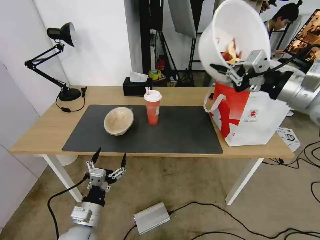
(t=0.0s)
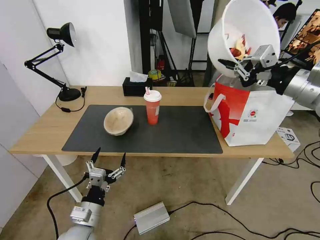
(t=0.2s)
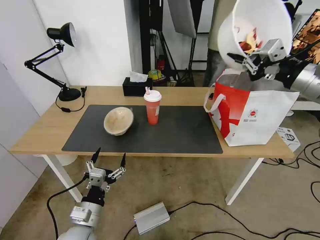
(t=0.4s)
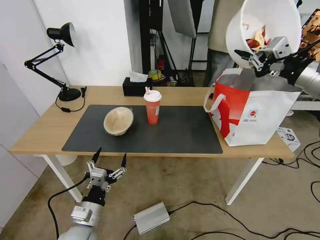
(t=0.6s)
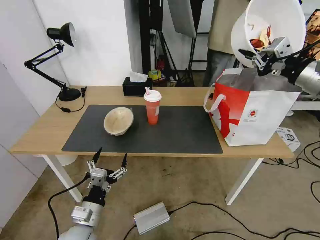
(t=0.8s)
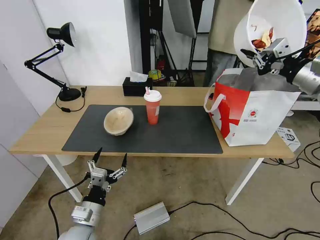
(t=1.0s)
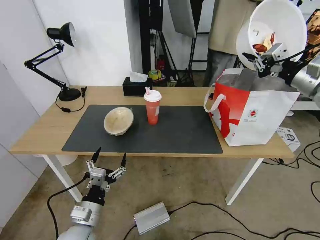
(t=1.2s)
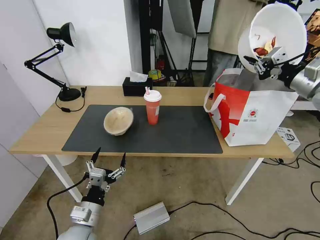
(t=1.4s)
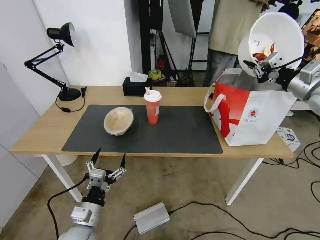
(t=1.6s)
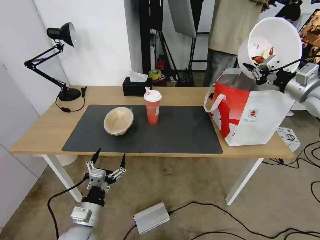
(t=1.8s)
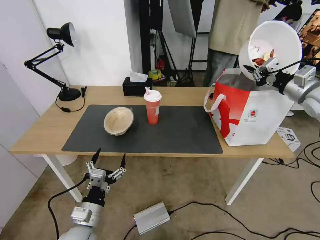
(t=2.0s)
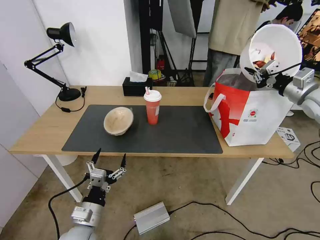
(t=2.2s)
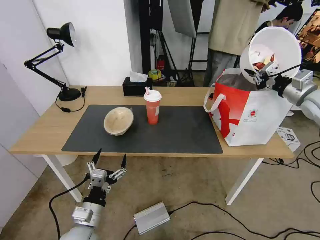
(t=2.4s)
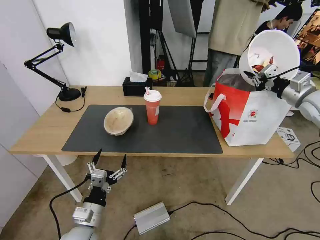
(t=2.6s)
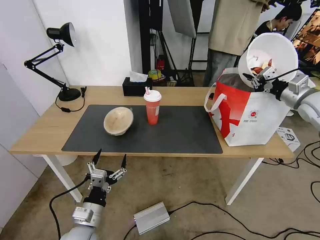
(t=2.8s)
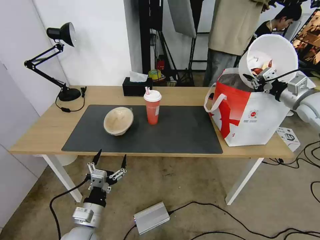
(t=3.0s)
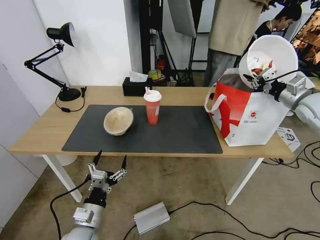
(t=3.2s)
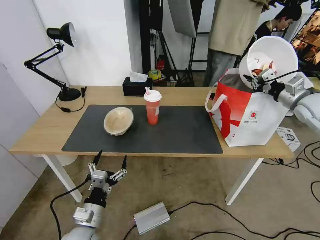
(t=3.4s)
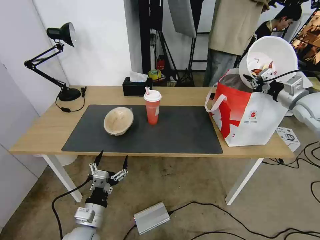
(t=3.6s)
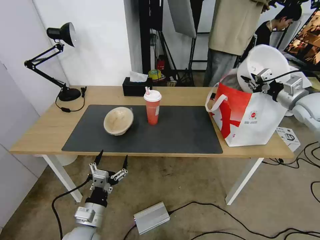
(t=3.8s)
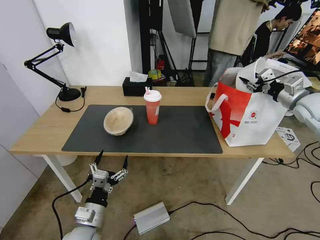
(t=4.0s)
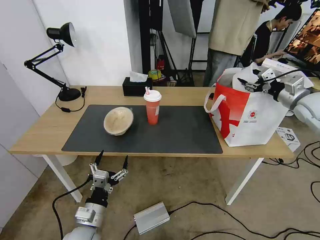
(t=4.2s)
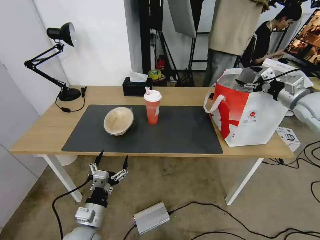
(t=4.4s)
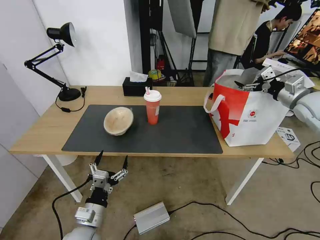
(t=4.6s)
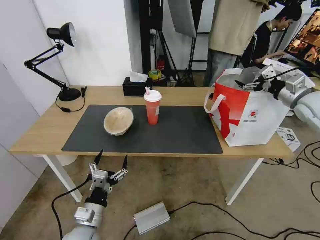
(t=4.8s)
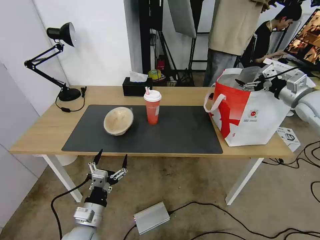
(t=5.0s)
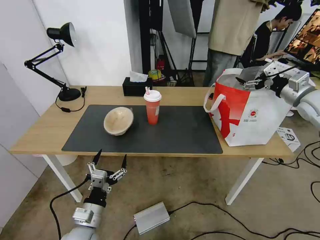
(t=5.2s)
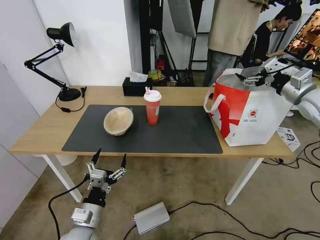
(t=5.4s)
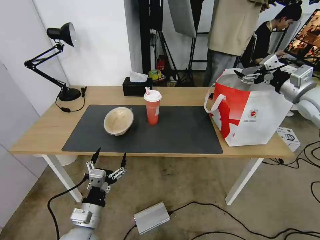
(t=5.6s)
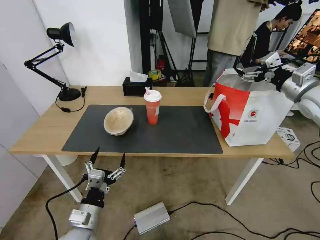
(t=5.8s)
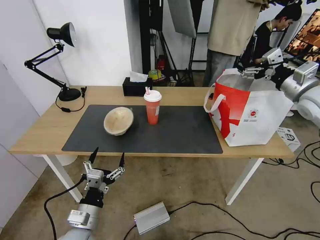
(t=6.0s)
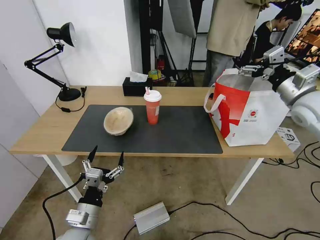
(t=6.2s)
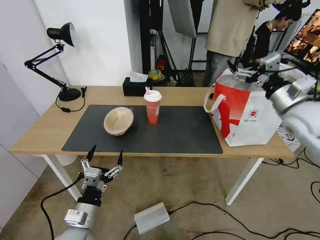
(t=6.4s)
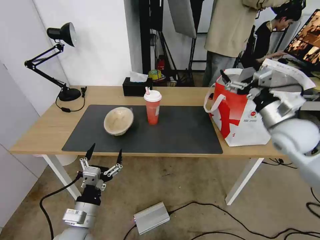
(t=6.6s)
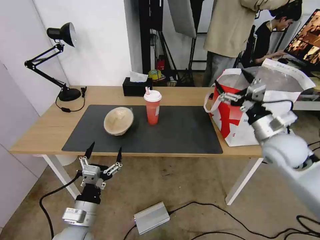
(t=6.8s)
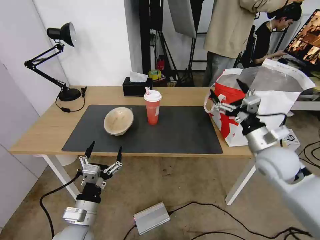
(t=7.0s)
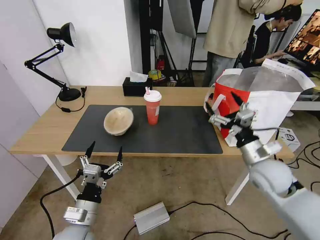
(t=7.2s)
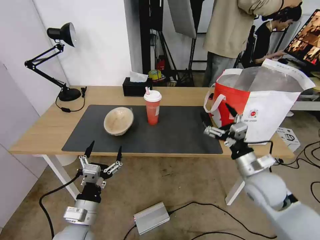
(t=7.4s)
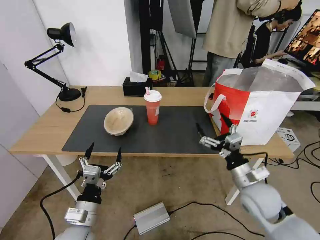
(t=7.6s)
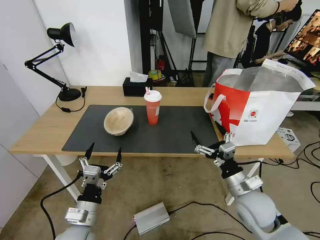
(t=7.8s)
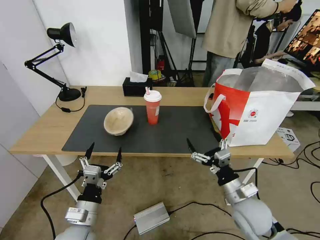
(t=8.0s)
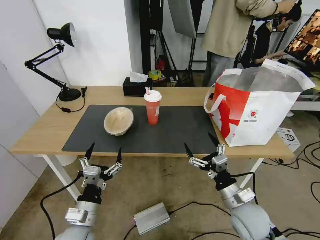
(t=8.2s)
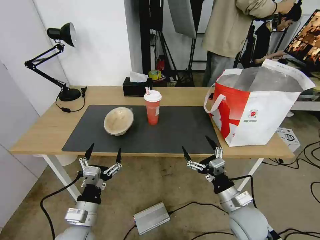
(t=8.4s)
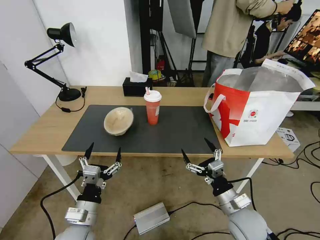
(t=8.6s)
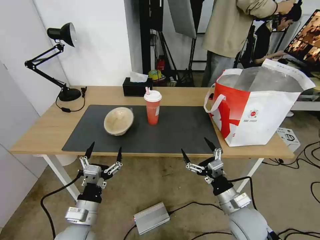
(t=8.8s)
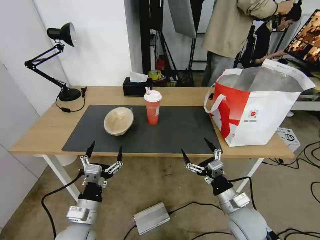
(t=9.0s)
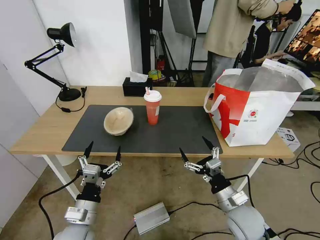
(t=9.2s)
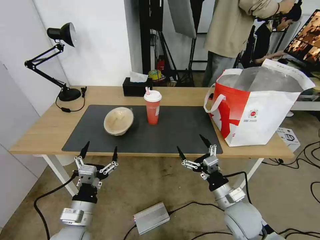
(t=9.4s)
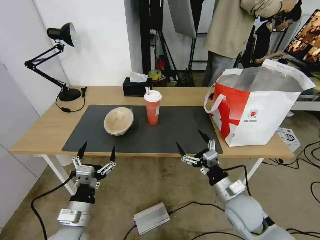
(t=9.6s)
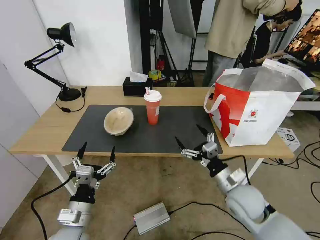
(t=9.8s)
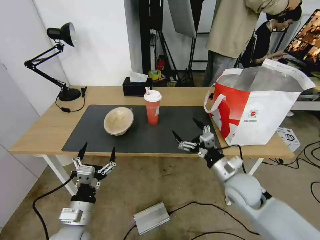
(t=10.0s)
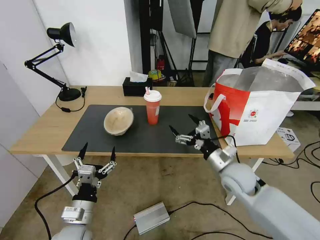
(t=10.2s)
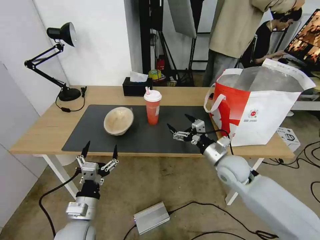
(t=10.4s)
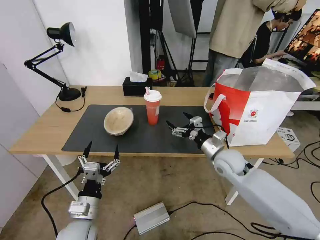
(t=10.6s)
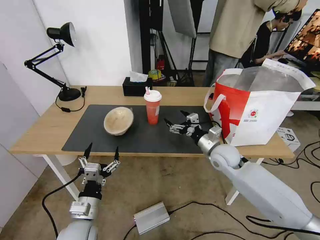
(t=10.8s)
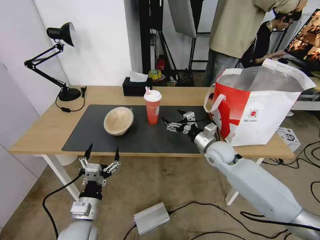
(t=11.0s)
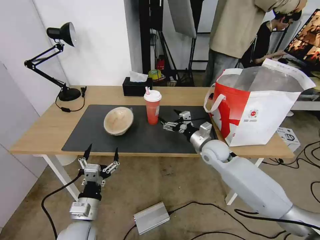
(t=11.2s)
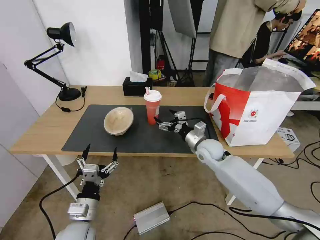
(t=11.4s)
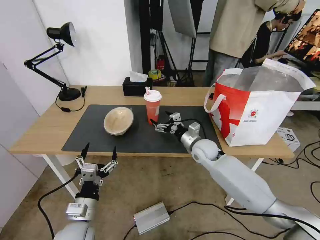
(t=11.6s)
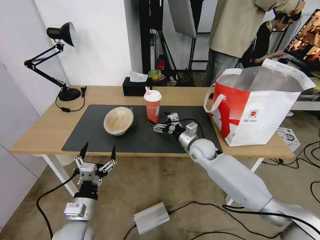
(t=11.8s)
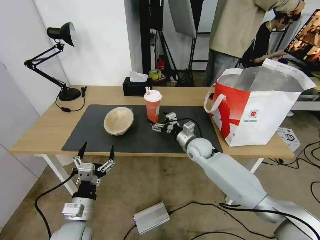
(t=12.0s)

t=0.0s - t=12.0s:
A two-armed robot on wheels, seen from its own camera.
Task of the whole recording: Pick up the trash from the table and place it into the takeout bag.
t=0.0s - t=1.6s: The right gripper is displaced to the right and forward by roughly 15 cm.
t=1.6s - t=3.0s: The right gripper shifts about 5 cm downward.
t=3.0s - t=4.4s: The right gripper opens up.
t=4.4s - t=6.0s: The right gripper changes place by some 10 cm.
t=6.0s - t=7.6s: The right gripper moves downward, backward and to the left, some 30 cm.
t=7.6s - t=9.0s: The right gripper travels downward by approximately 5 cm.
t=9.0s - t=10.4s: The right gripper is displaced forward by about 15 cm.
t=10.4s - t=12.0s: The right gripper moves forward and to the left, approximately 15 cm.

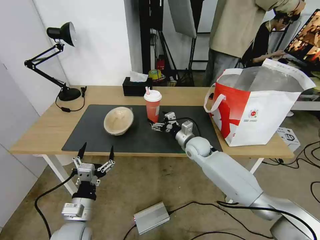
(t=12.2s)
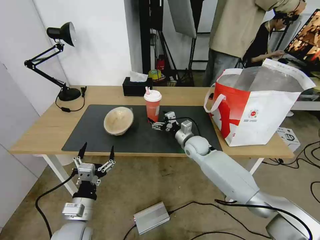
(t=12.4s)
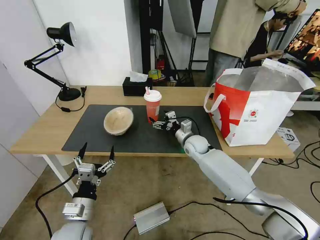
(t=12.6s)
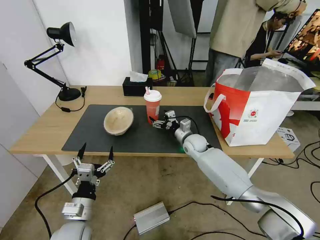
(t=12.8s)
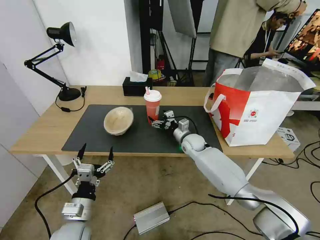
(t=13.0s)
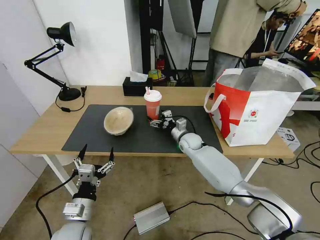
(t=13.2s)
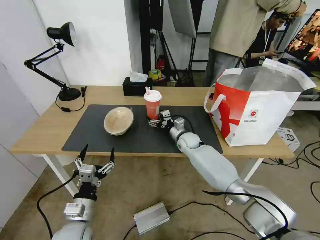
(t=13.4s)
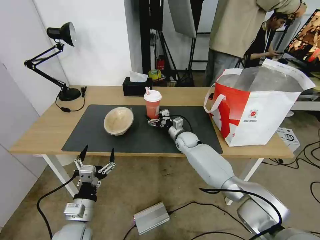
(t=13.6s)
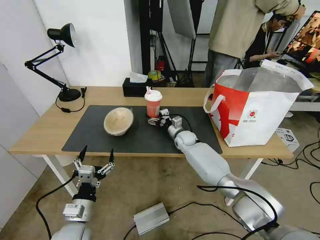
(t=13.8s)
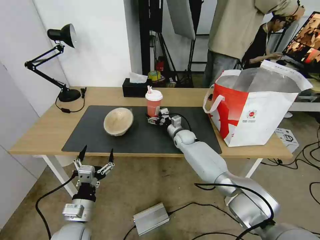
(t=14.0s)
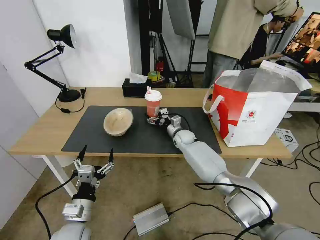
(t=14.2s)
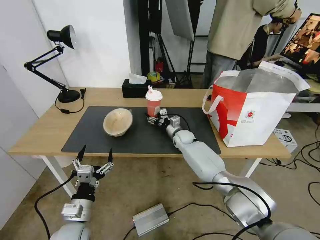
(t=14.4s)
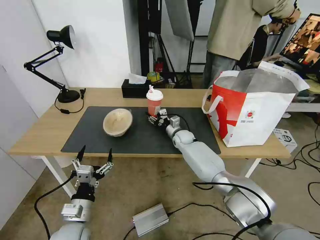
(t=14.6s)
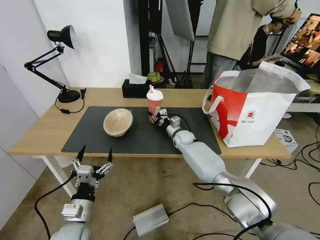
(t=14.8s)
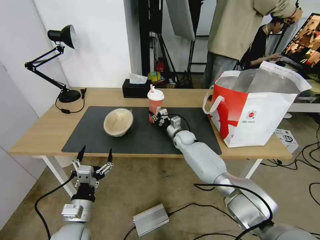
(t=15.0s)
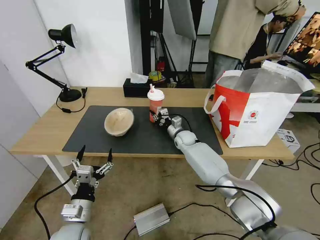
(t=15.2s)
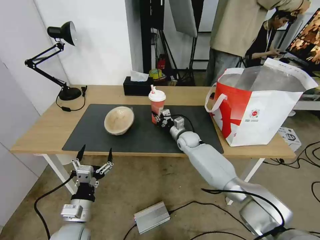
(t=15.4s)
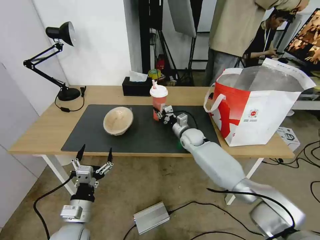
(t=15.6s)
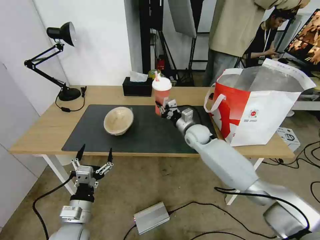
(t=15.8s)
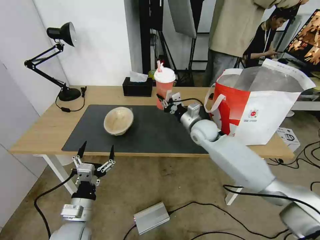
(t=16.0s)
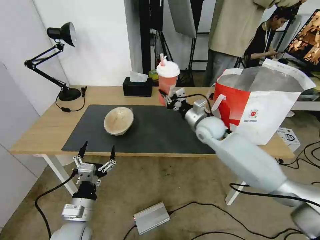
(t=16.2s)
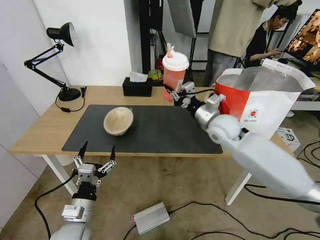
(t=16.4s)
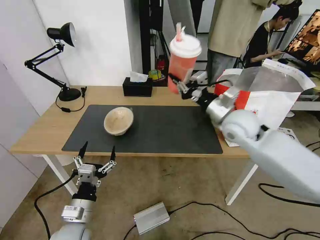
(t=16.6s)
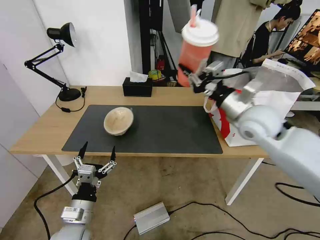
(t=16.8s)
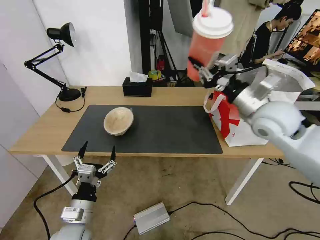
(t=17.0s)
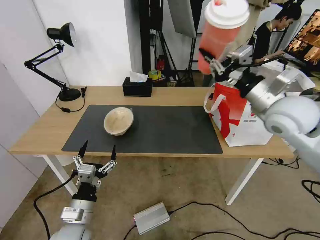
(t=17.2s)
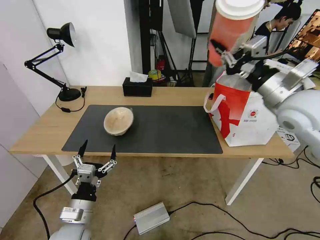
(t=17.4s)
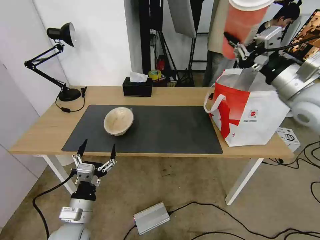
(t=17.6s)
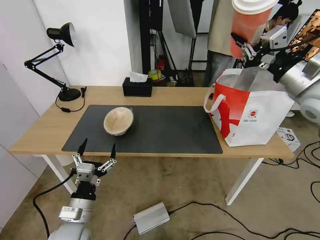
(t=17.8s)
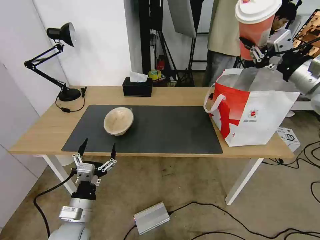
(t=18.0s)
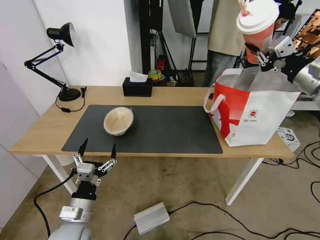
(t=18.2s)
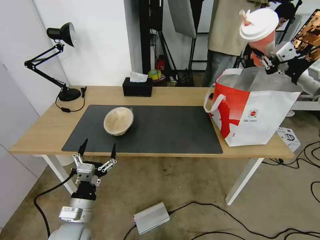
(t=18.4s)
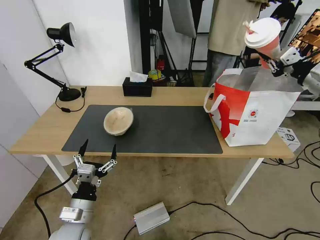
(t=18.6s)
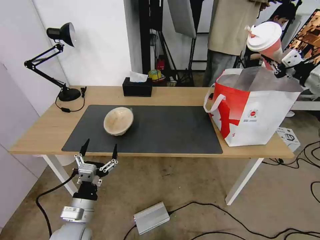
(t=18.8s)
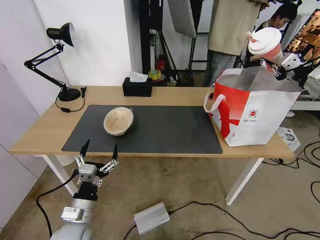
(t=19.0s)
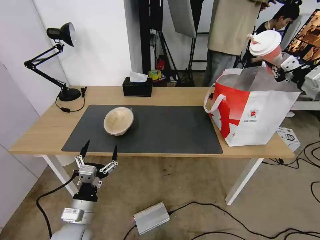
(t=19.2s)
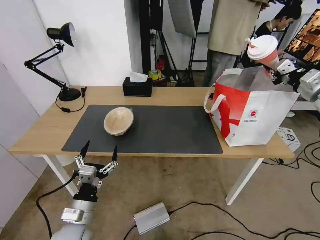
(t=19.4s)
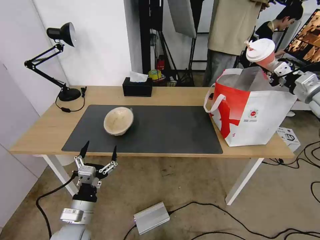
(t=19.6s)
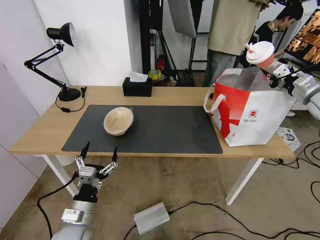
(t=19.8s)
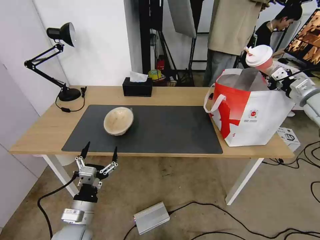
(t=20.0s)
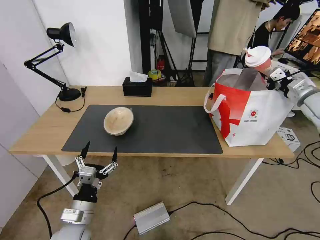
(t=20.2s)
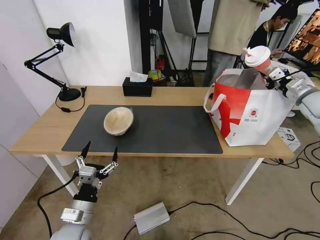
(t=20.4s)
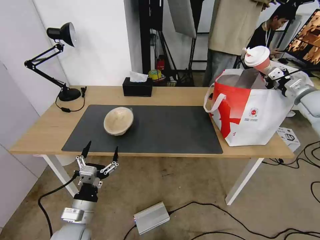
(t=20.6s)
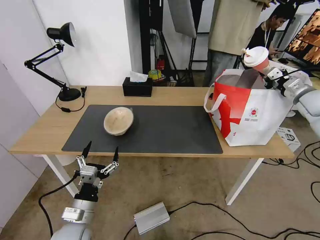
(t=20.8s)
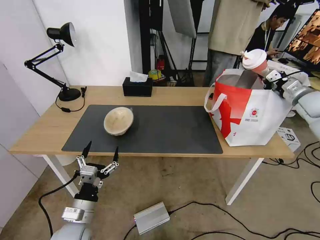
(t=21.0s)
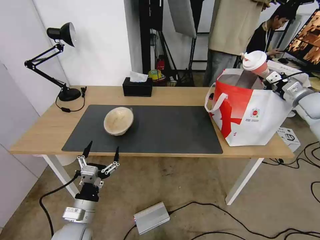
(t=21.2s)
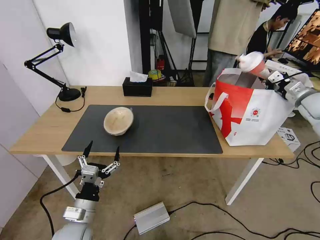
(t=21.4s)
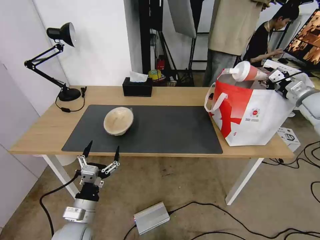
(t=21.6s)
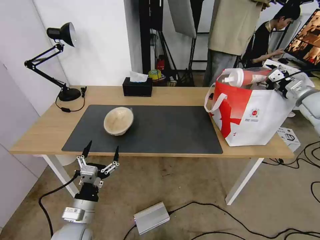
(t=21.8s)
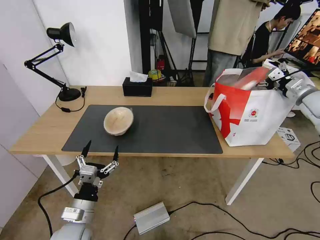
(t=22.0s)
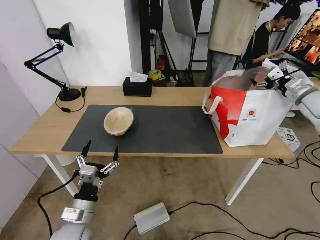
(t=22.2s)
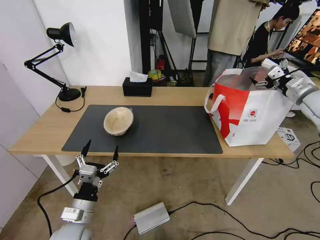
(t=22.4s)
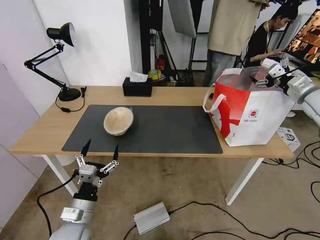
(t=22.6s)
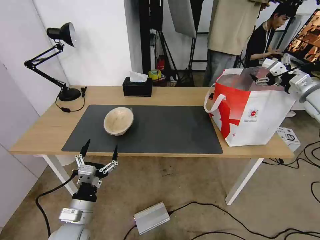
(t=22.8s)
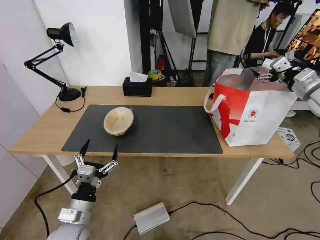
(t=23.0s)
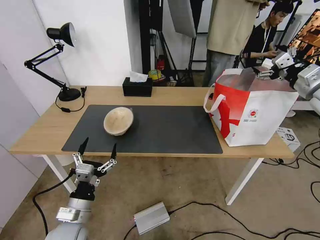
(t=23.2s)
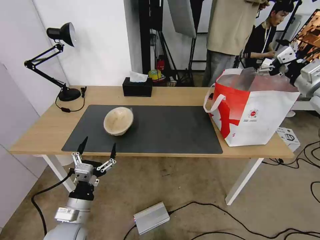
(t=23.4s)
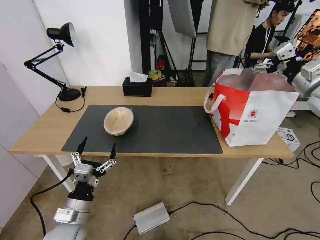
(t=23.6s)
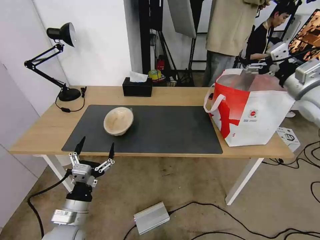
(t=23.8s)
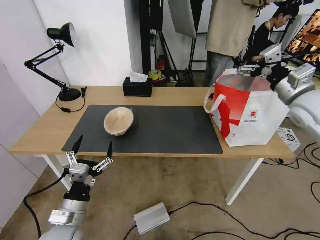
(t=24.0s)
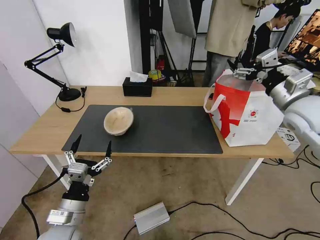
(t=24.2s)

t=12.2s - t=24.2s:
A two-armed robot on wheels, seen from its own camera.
Task of the whole recording: Pick up the trash from the table and place it into the takeout bag.
t=12.2s - t=13.8s: The right gripper moves forward, approximately 10 cm.
t=13.8s - t=15.2s: The right gripper closes its fingers.
t=15.2s - t=16.6s: The right gripper travels upward, backward and to the right by about 30 cm.
t=16.6s - t=18.2s: The right gripper travels to the right and upward by approximately 25 cm.
t=18.2s - t=19.8s: The right gripper heads to the right, downward and forward, covering about 15 cm.
t=19.8s - t=21.2s: The right gripper ends up roughly 5 cm from where it was.
t=21.2s - t=22.6s: The right gripper ends up roughly 5 cm from where it was, and opens.
t=22.6s - t=24.2s: The right gripper moves to the left and backward, approximately 15 cm.
